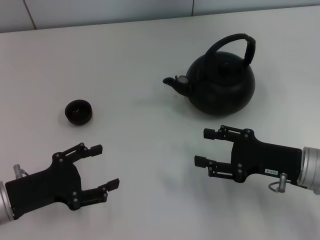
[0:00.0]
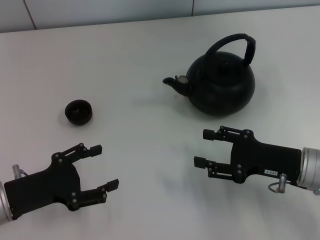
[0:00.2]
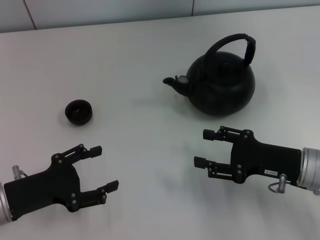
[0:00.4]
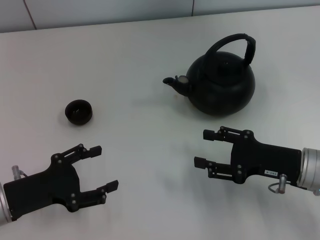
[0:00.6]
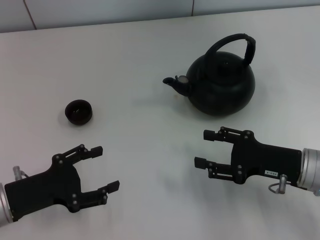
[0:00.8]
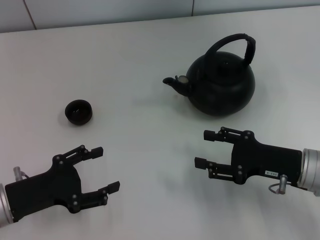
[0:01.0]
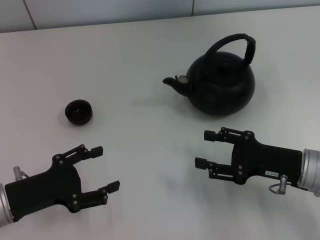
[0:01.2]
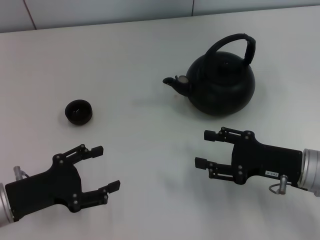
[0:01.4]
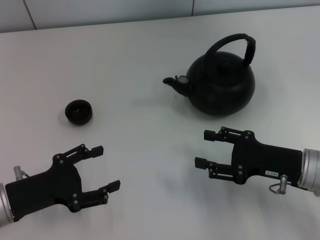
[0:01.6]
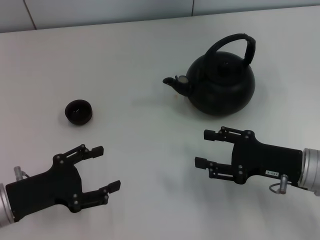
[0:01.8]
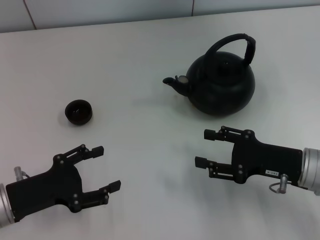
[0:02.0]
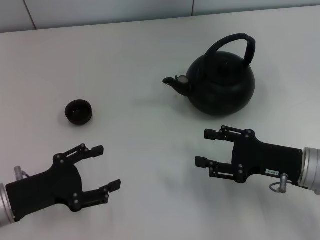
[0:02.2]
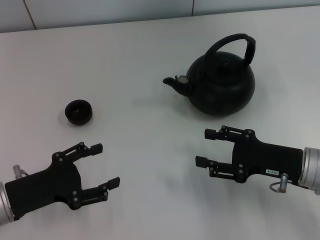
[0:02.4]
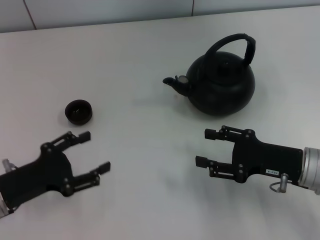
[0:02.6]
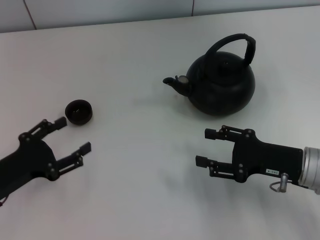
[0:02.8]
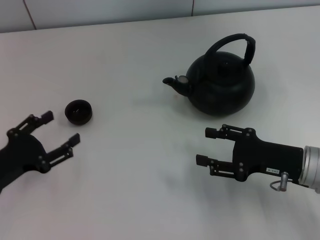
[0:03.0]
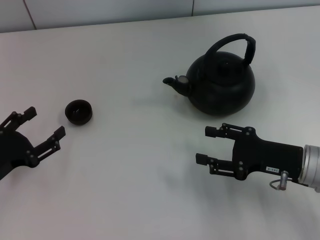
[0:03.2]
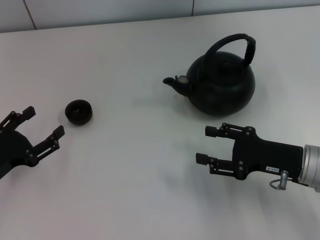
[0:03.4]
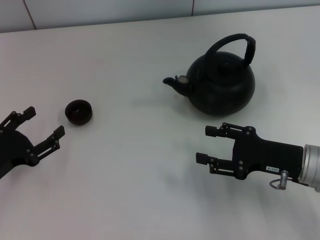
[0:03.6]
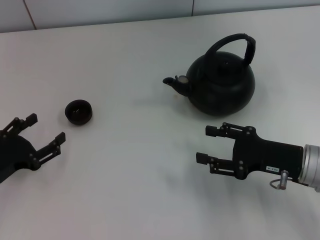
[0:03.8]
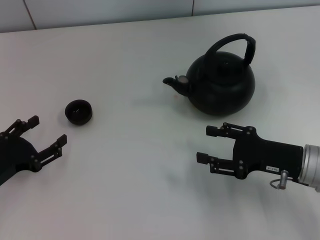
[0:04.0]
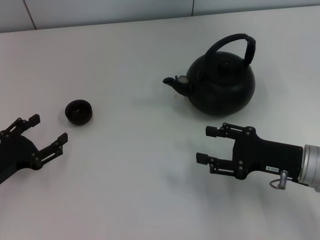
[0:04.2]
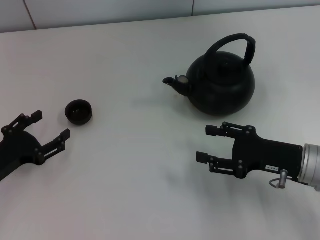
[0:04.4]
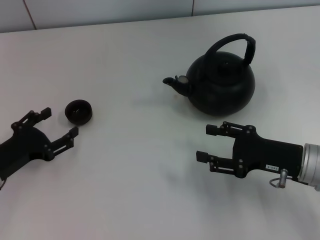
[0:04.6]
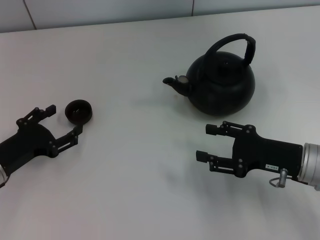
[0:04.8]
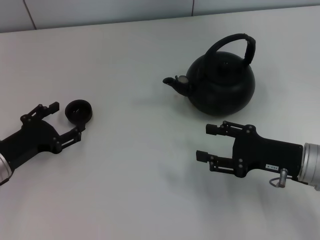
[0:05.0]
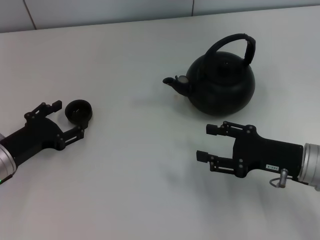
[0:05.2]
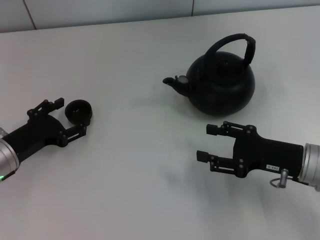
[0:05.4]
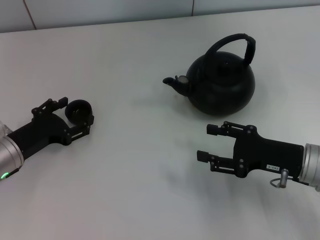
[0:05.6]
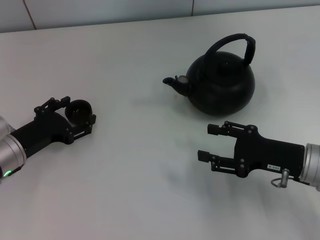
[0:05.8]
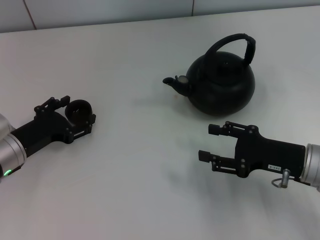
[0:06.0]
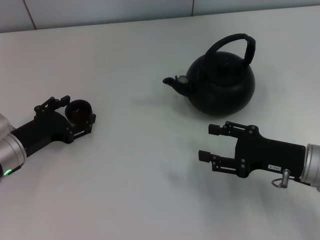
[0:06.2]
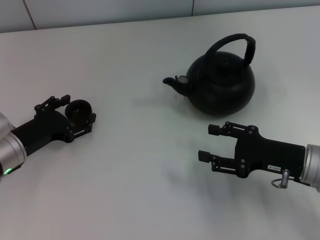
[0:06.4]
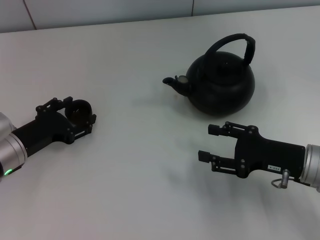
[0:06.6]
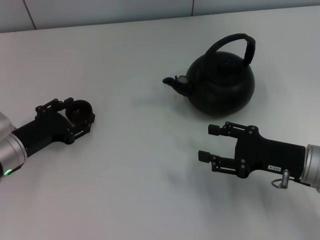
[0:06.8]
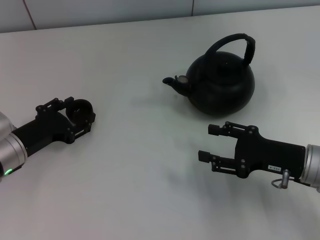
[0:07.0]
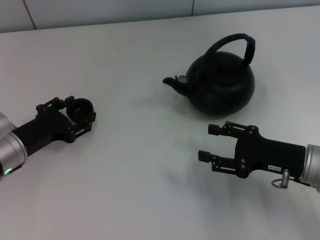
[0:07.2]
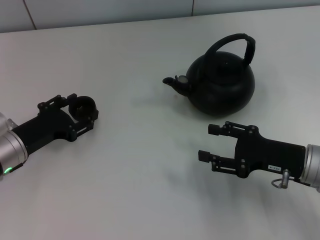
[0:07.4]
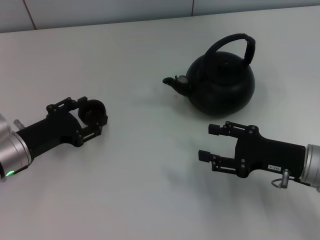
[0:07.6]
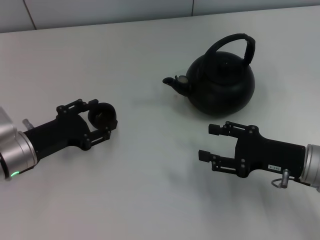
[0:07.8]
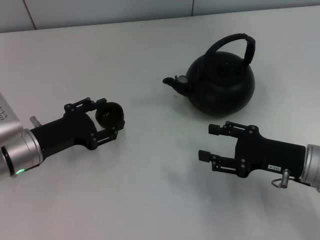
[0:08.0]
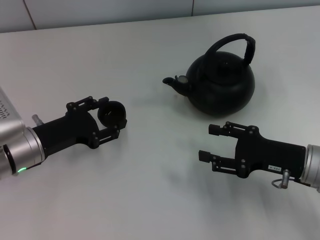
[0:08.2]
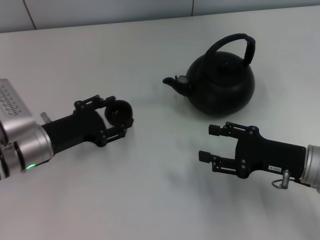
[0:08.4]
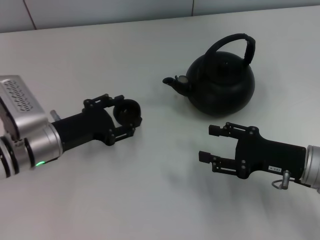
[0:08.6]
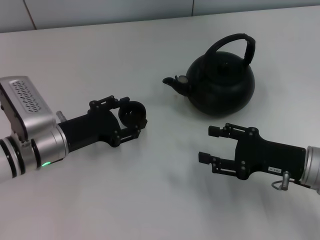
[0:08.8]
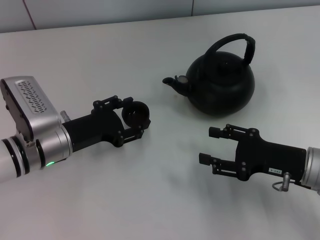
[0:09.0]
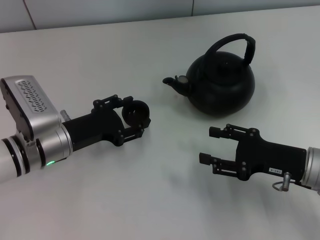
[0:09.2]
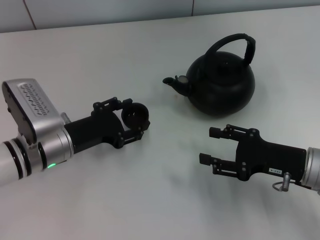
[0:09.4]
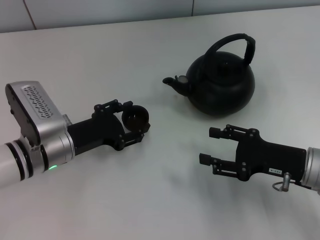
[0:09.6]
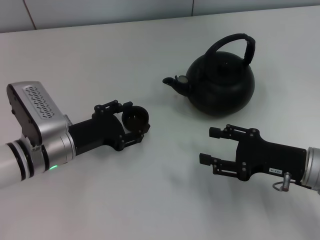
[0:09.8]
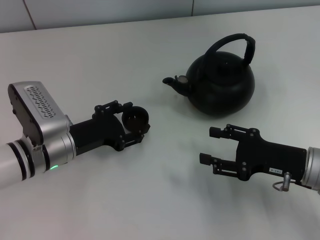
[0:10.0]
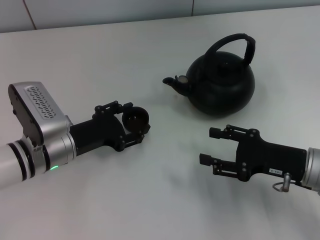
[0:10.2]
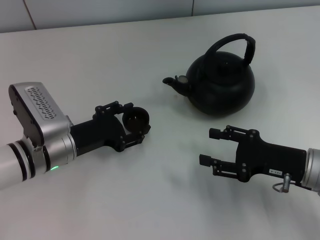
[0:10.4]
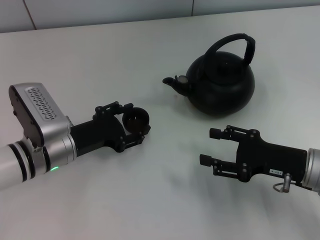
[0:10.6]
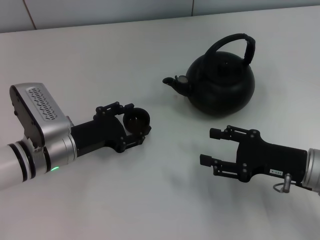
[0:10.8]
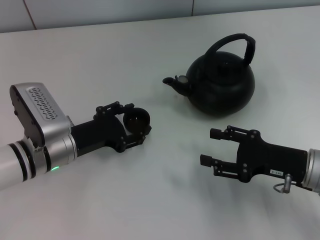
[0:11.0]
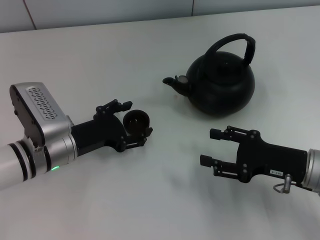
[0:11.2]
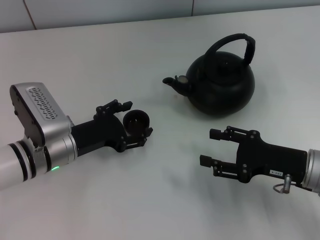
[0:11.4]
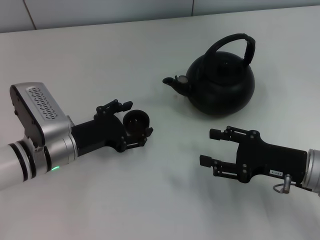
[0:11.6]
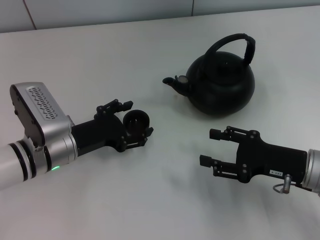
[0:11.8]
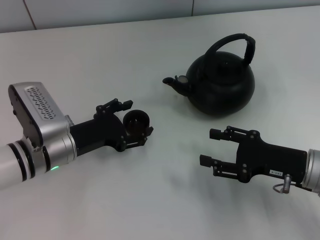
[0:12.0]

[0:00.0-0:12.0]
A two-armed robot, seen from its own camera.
Task of the whole recording: Grasp the handle of the teapot with one hand and pour tea into the teacup.
Step, 0:00.0 to 0:07.4: Pick up the teacup with the left gripper.
0:00.0 to 0:01.6: Both grippers stay put.
0:03.0 to 0:04.4: The grippers make only small movements.
0:04.4 to 0:06.0: The left gripper changes place by roughly 5 cm.
0:06.0 to 0:07.6: The left gripper closes its fingers.
0:07.6 to 0:09.0: The left gripper travels to the right by about 5 cm.
0:09.0 to 0:10.4: Neither gripper changes place.
0:10.4 to 0:12.0: The left gripper opens up.

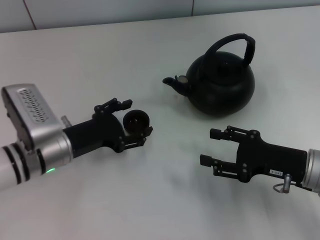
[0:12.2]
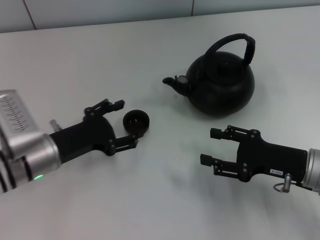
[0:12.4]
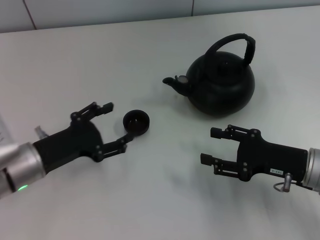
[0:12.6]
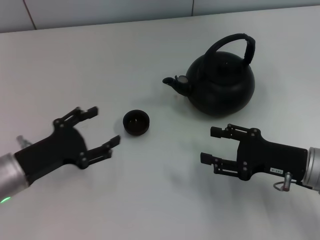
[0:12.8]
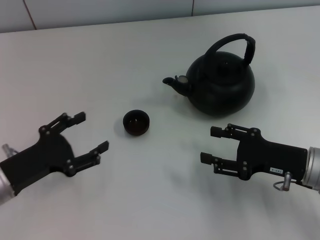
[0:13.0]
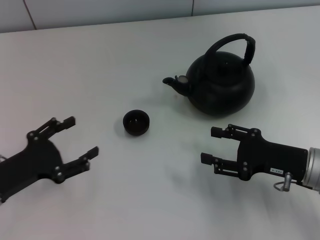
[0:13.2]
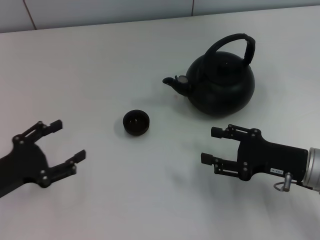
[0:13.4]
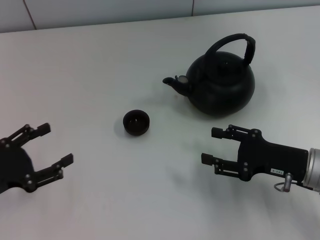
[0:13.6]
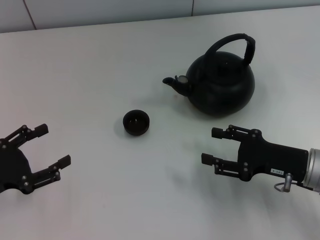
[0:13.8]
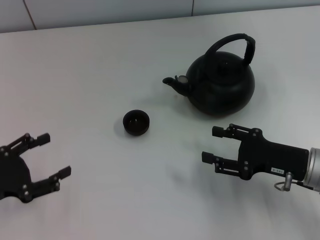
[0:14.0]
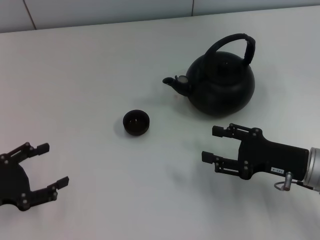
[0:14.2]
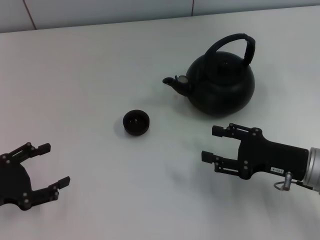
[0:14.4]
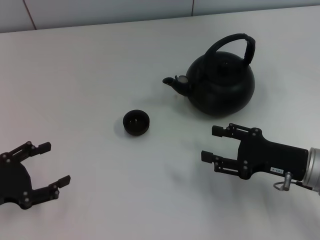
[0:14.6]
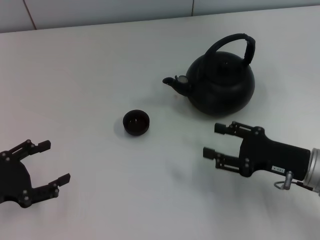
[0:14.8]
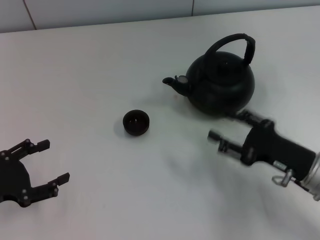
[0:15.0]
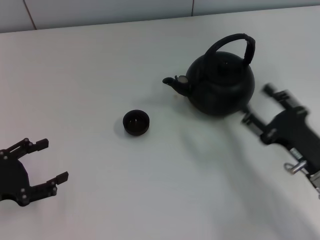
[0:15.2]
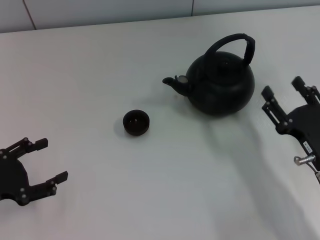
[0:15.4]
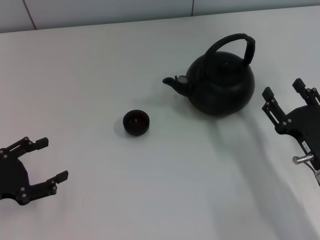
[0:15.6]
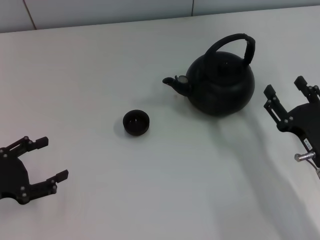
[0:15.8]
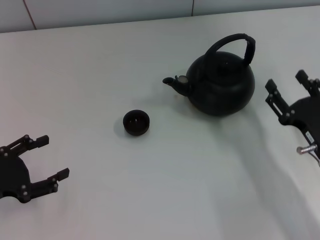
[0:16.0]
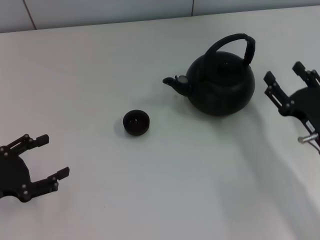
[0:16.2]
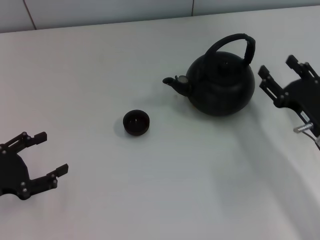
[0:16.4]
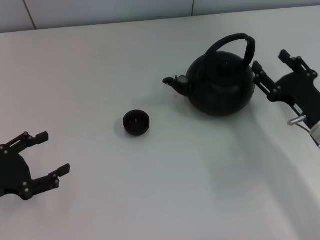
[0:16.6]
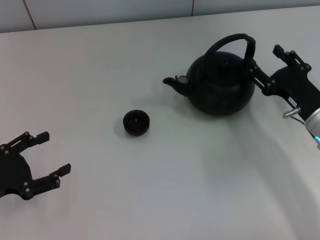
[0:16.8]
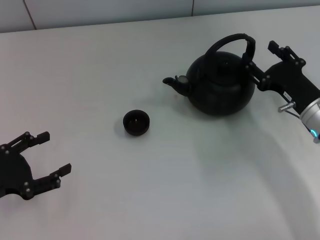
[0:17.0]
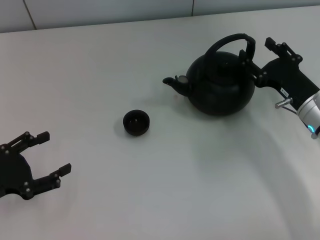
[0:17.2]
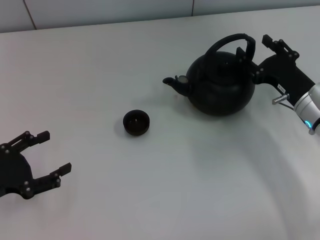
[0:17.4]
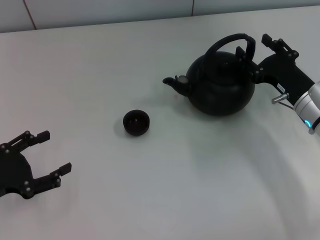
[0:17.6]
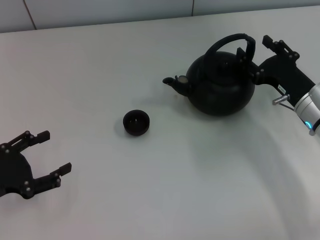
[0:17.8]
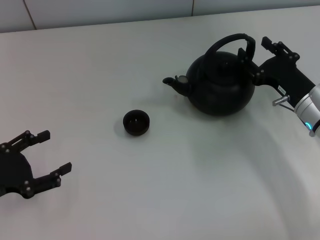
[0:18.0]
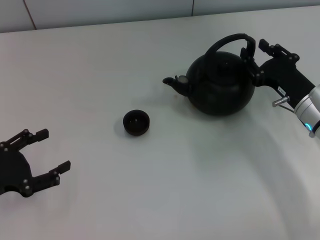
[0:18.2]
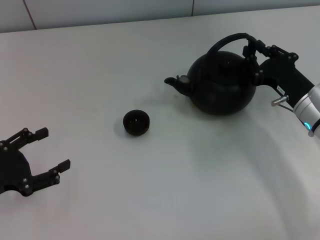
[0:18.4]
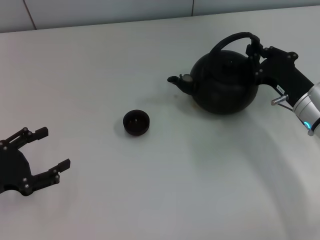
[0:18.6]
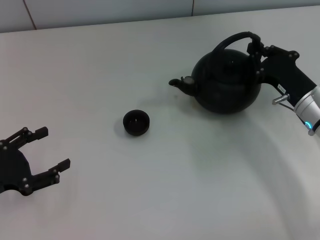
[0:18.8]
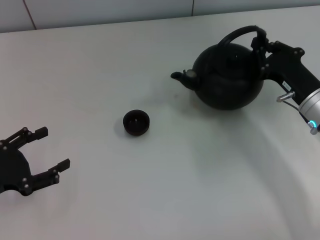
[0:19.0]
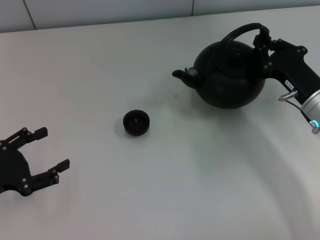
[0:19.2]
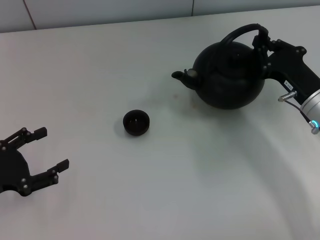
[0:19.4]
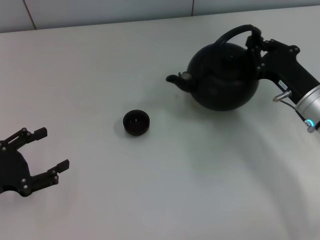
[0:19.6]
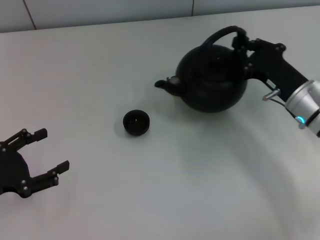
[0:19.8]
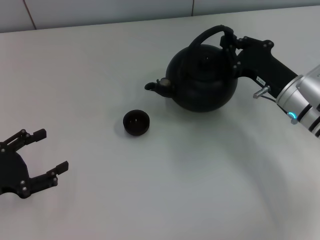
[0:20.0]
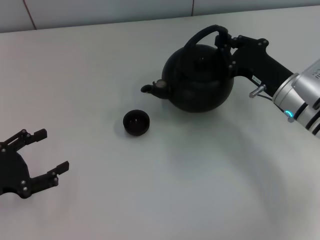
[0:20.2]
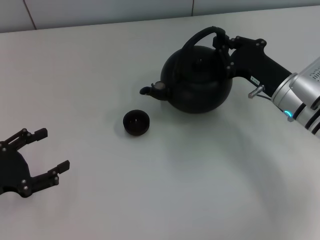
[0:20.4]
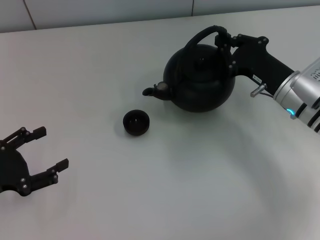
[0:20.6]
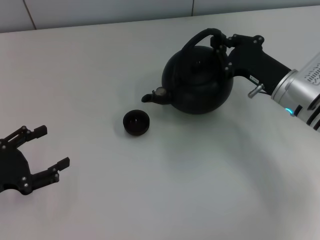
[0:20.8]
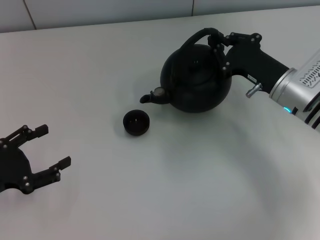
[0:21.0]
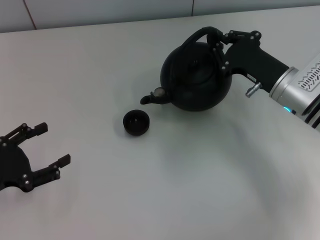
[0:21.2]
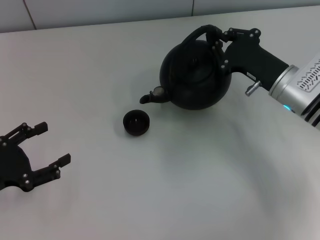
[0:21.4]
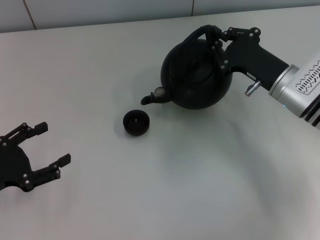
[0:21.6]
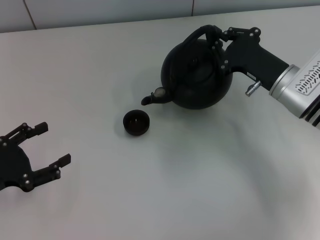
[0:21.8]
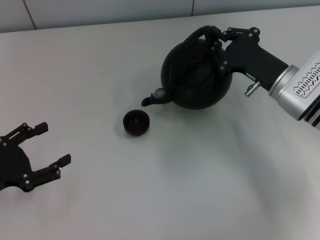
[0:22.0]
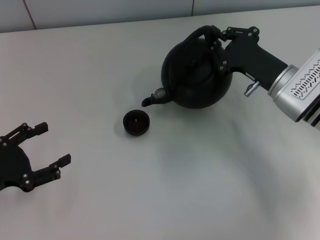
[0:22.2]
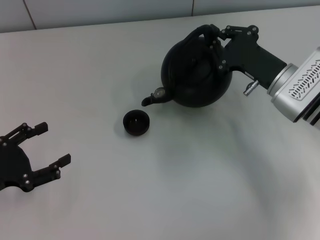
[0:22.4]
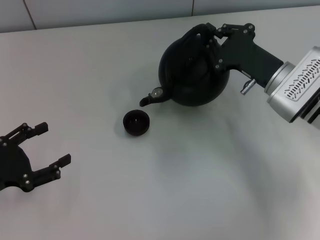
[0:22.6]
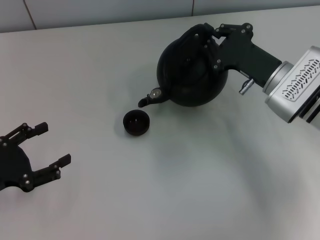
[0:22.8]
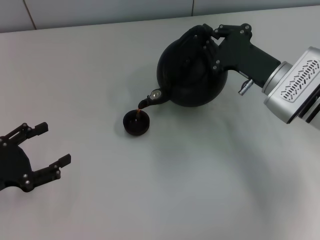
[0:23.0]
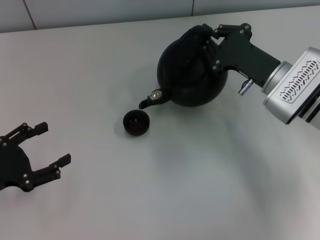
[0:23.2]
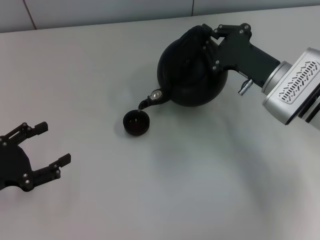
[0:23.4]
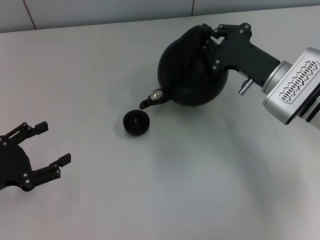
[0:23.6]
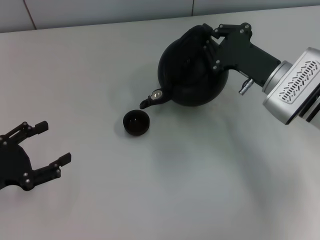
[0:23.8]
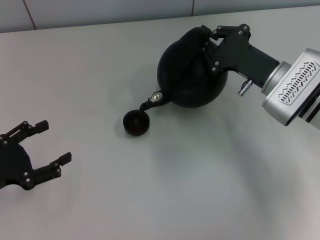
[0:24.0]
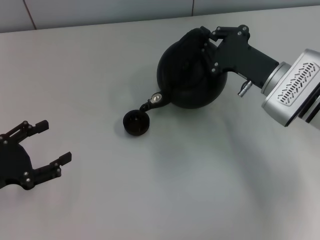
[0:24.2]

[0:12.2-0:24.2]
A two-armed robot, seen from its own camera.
Task of the whole recording: Grasp the handle of the teapot with one hand and pour tea into the teacup.
Step, 0:12.6 to 0:19.2: Pick up the teapot with the right gripper.
0:12.2 to 0:13.8: The left gripper is displaced to the left and backward by approximately 15 cm.
0:15.2 to 0:16.6: The right gripper travels forward by some 5 cm.
0:16.6 to 0:18.2: The grippers make only small movements.
0:18.2 to 0:19.8: The right gripper closes its fingers.
0:19.8 to 0:21.2: The grippers make only small movements.
0:21.2 to 0:22.6: The grippers stay close to where they were, moving slightly.
0:22.6 to 0:24.2: Neither gripper changes place.
